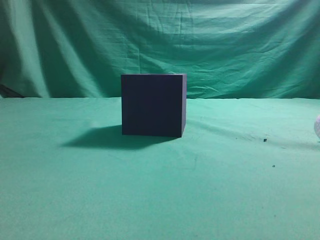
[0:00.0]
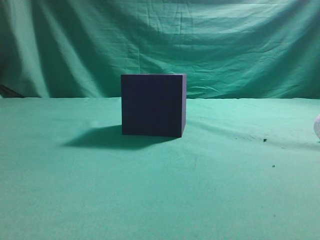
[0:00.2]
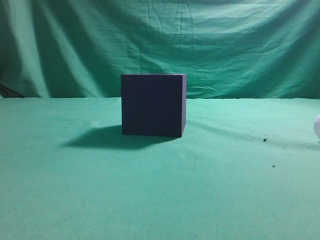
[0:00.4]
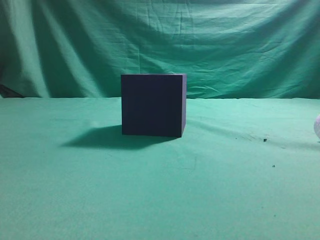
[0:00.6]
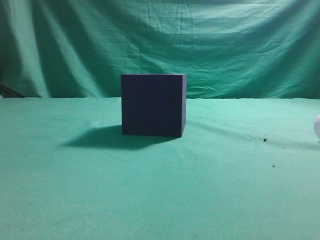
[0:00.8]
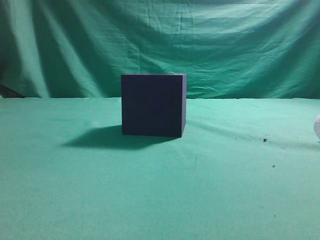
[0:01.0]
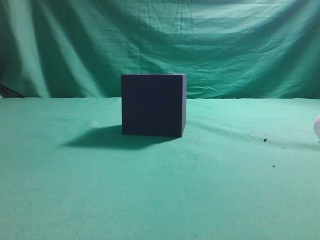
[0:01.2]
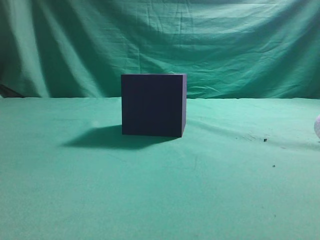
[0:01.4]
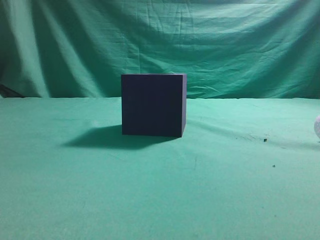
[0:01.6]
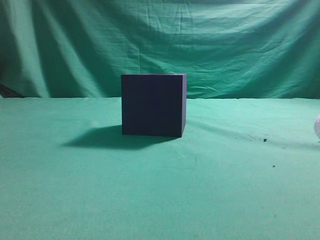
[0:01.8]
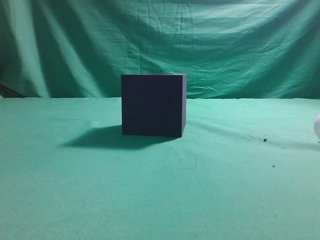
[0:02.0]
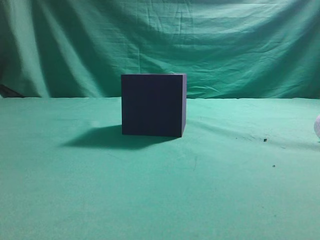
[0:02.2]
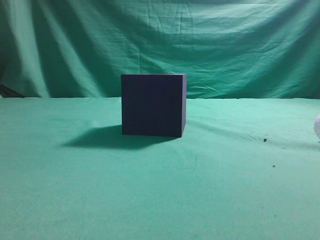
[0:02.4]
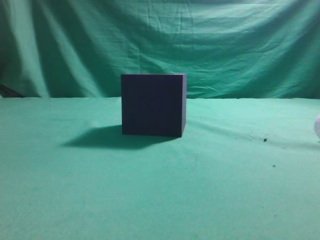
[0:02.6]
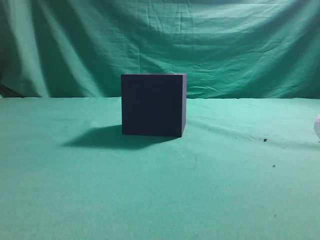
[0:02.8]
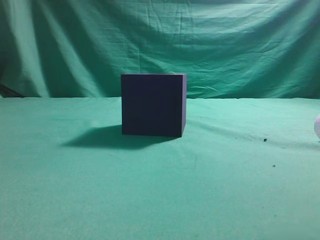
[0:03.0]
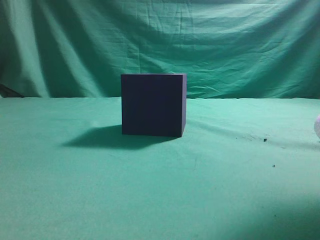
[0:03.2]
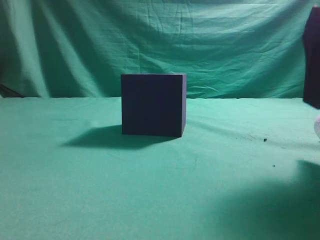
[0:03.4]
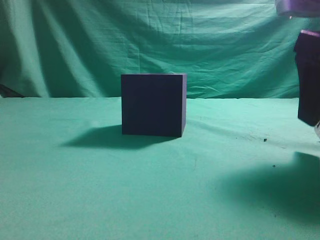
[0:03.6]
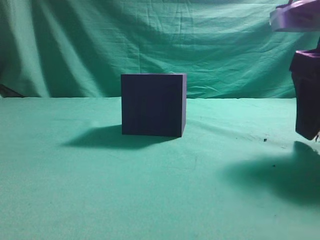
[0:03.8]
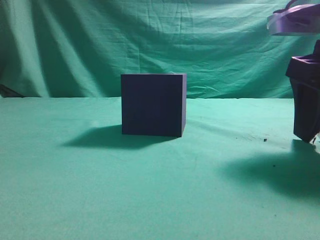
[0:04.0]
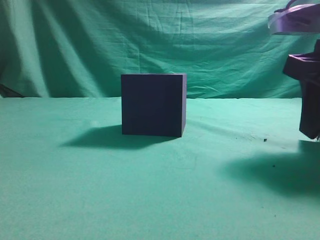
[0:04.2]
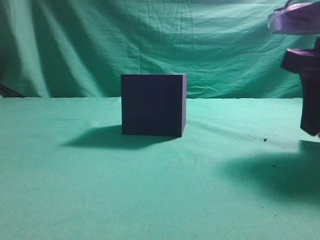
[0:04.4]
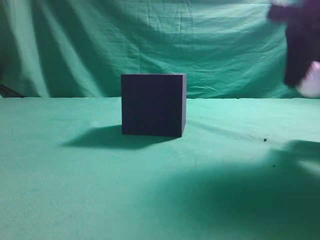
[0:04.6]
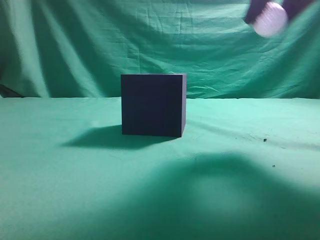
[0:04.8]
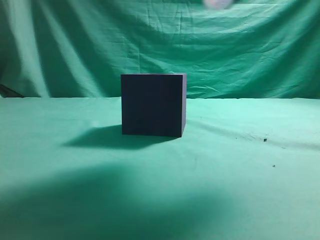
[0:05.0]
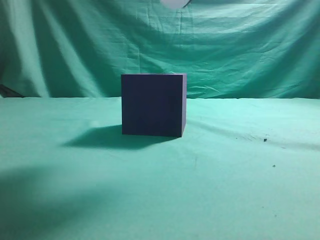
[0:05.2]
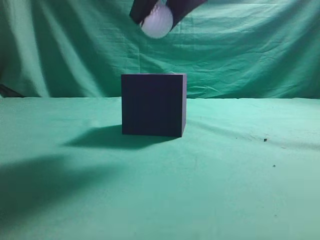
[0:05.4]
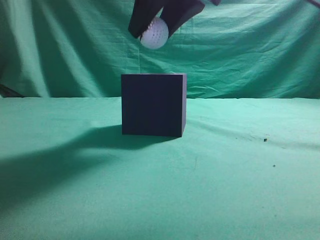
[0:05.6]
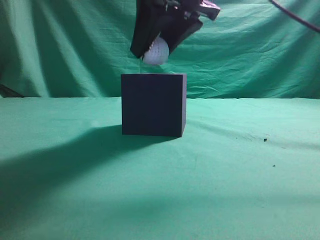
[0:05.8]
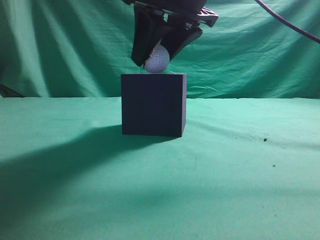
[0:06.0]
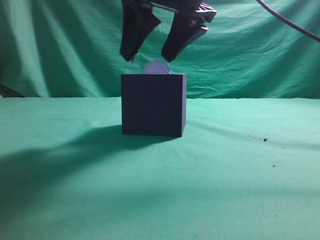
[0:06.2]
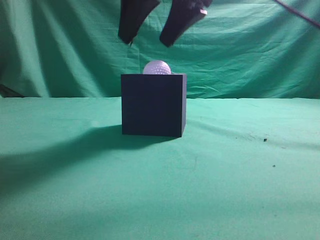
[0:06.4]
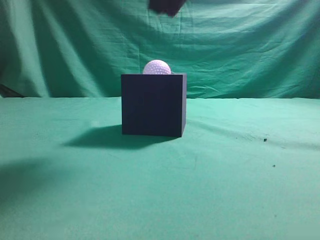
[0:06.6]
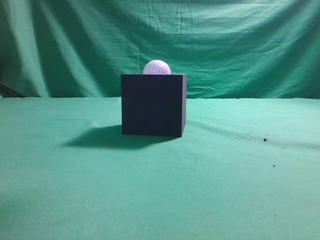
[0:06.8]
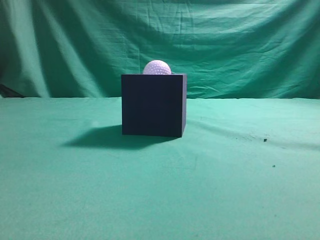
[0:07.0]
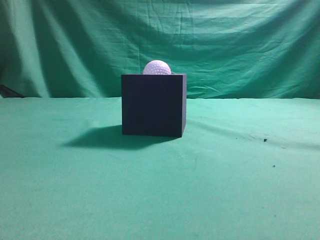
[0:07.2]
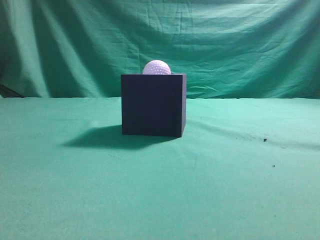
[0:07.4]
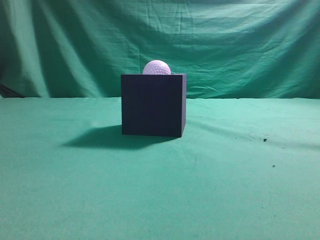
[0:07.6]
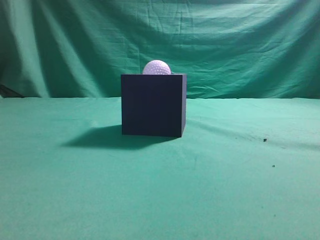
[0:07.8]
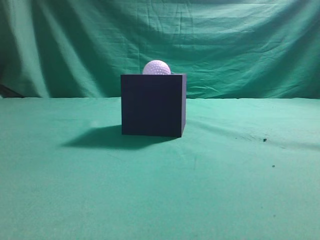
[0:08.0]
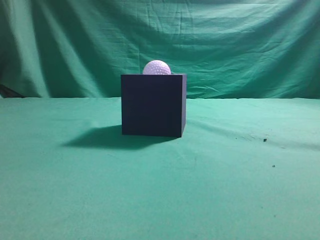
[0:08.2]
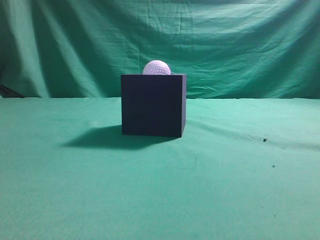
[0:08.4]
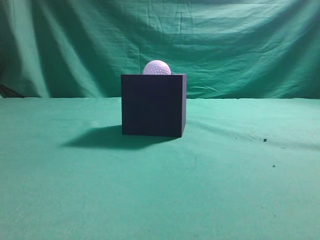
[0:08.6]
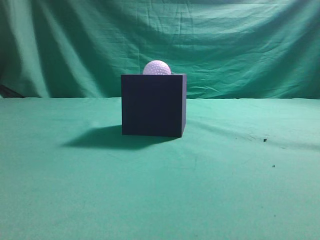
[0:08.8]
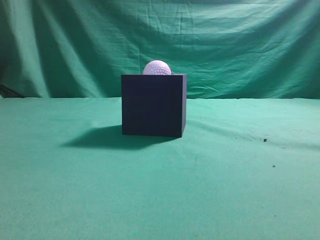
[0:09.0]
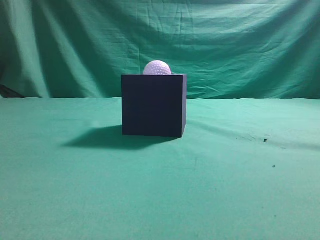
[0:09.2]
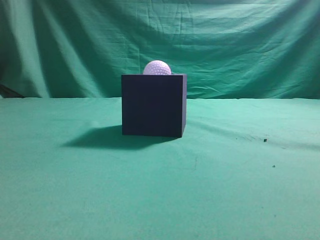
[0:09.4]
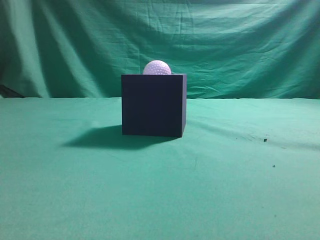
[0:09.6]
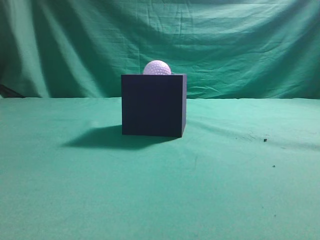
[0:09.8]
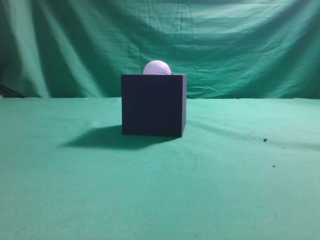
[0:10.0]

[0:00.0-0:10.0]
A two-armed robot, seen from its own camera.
Task of the whole recording: Pick up the ball and place it in the circular groove above the cube.
Step, 0:00.0 to 0:04.4: Grasp the sphere on the table.
Step, 0:04.6 to 0:06.4: Place the sphere into the sphere-shaped recess.
0:02.8 to 0:04.2: The right gripper heads downward and forward, covering roughly 10 cm, and opens its fingers.
0:04.2 to 0:05.8: The right gripper goes about 20 cm to the left and upward.
0:05.8 to 0:07.2: The right gripper travels upward, to the right and backward by approximately 25 cm, and closes.
